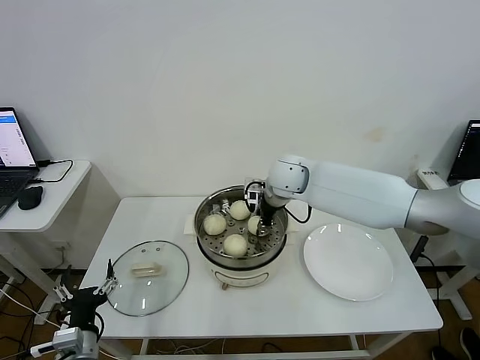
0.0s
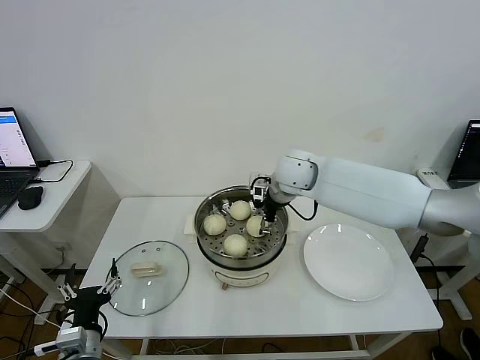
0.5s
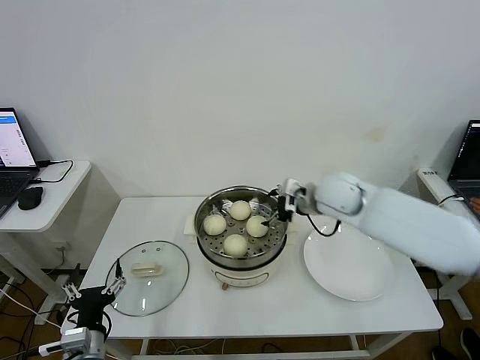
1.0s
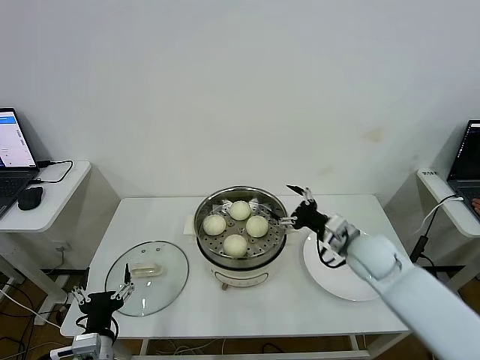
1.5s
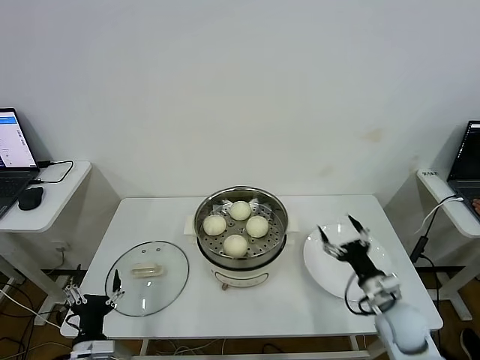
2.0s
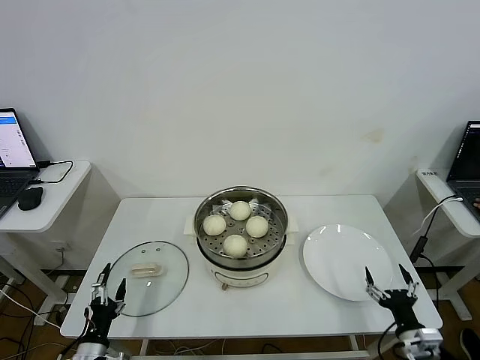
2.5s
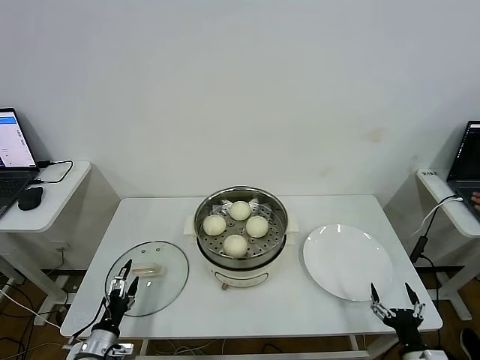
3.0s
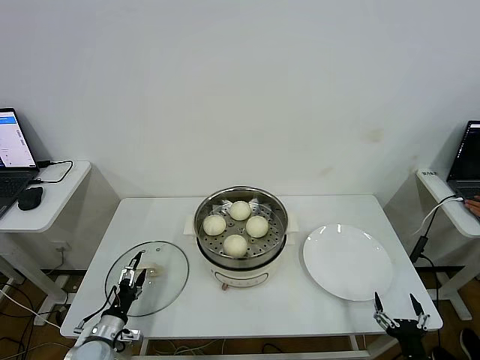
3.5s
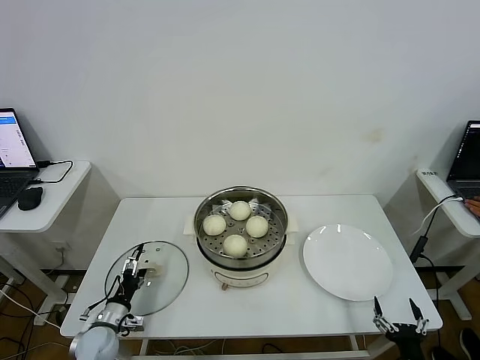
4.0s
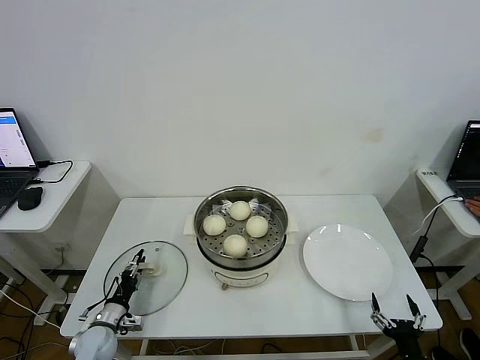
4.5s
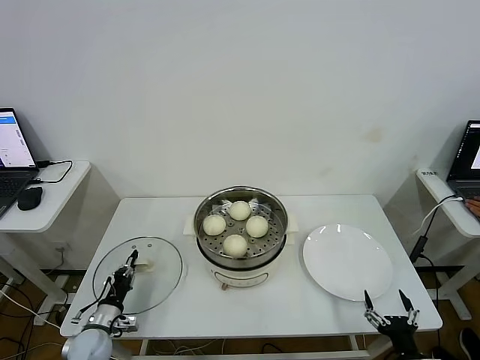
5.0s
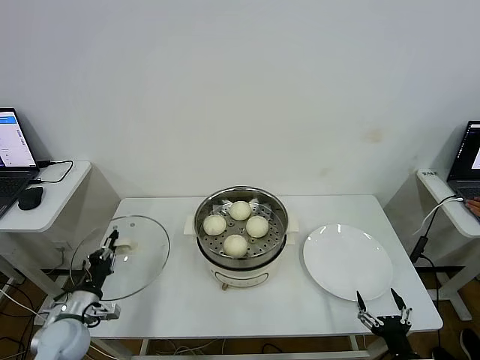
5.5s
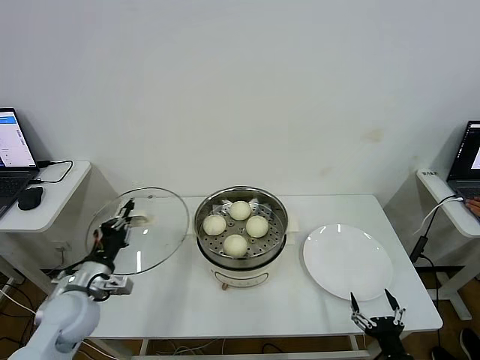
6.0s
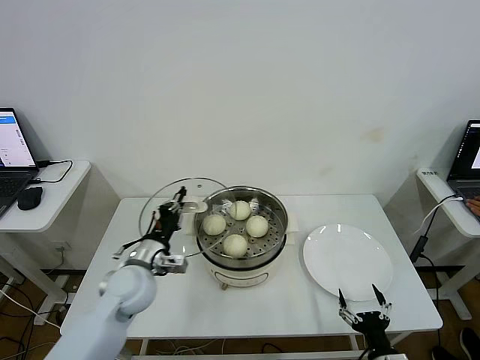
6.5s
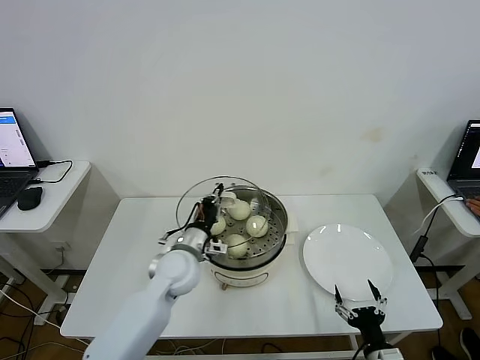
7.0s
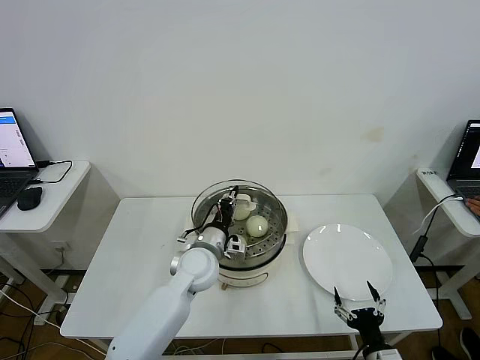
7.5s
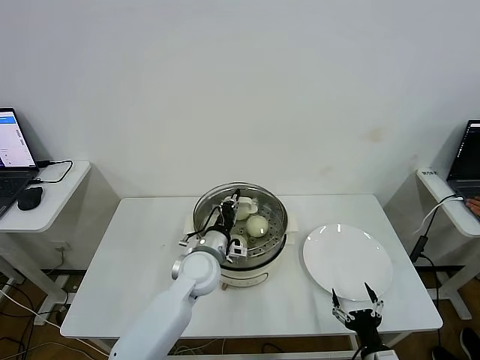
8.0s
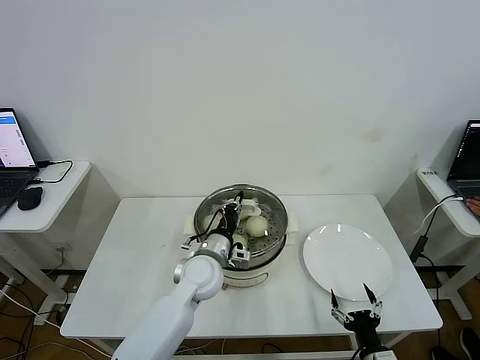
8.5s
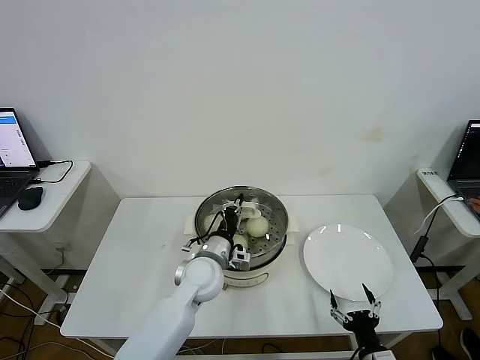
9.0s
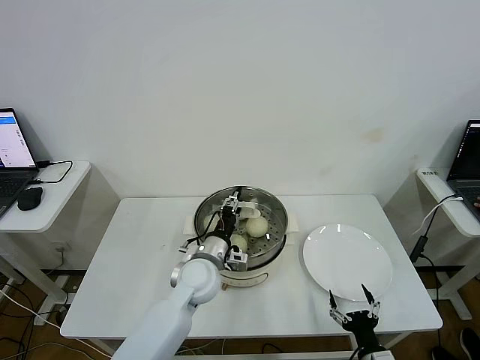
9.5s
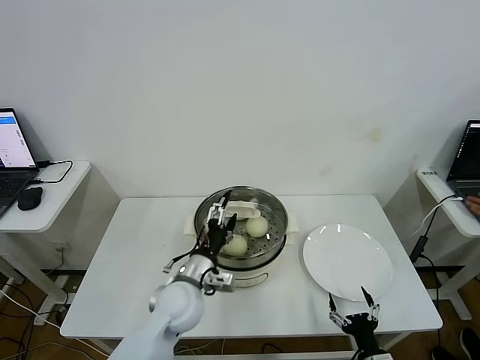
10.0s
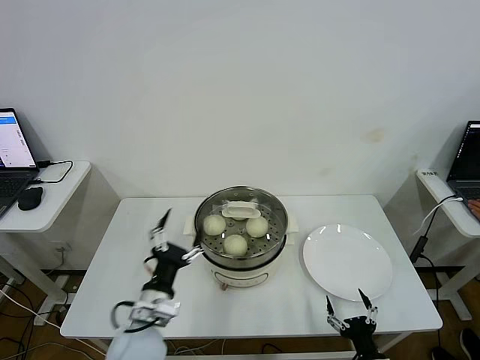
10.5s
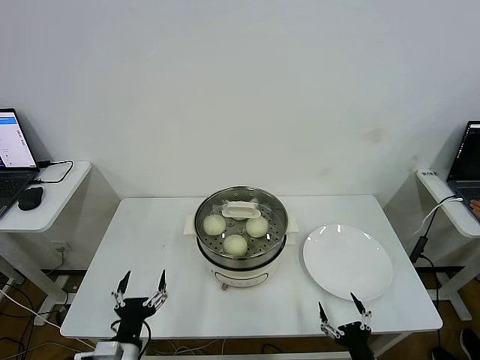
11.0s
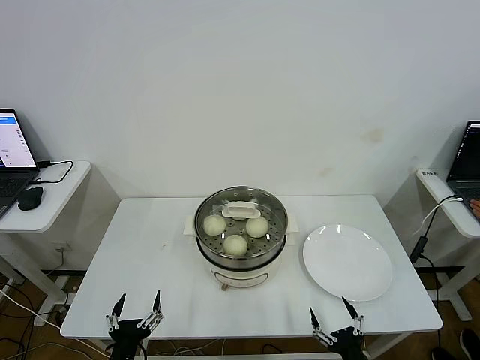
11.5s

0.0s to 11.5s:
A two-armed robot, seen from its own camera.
Step, 1.0s to 5.0s: Grasp the pot lid with left gripper.
Step, 5.5s to 9.5s: Place the pot lid on the steamer with left gripper.
0.0s to 2.0s: The right gripper moves backward, to the right and downward, approximately 40 cm, and opens its fingers.
2.0s to 4.0s: The right gripper heads backward and downward, covering roughly 20 cm, while the left gripper is displaced forward, downward and to the left by some 15 cm.
4.0s to 6.0s: The left gripper goes some 20 cm upward, and closes up.
6.0s to 7.5s: The left gripper moves to the right and forward, approximately 25 cm.
7.5s to 9.5s: The left gripper opens its fingers.
9.5s to 11.5s: The right gripper ends up about 5 cm from where it was; the left gripper travels backward and to the left by approximately 30 cm, and opens.

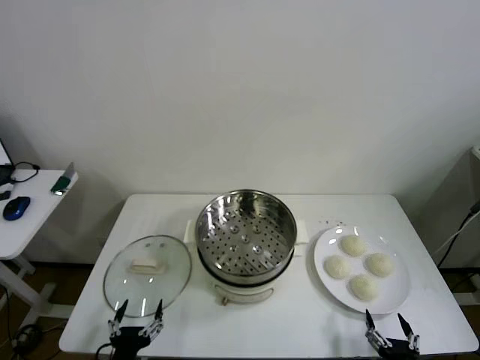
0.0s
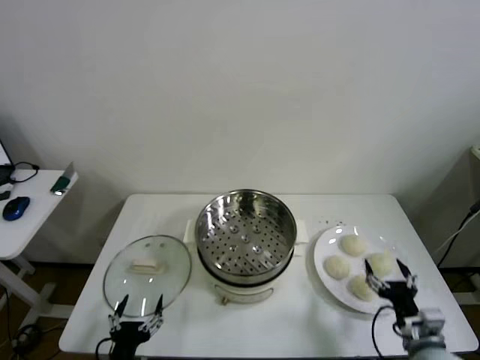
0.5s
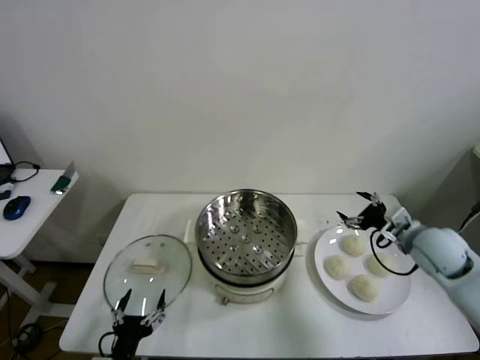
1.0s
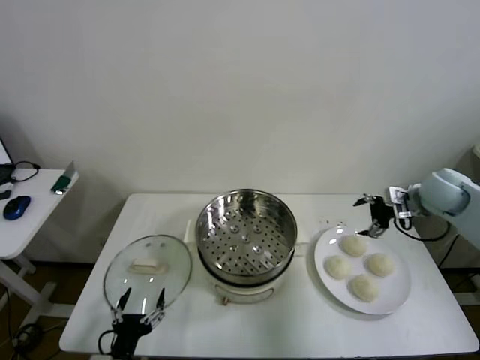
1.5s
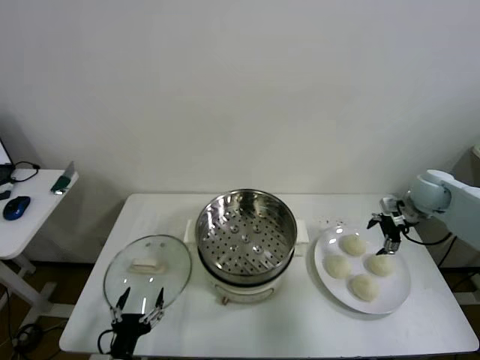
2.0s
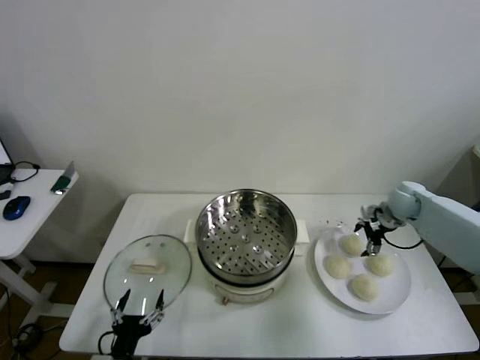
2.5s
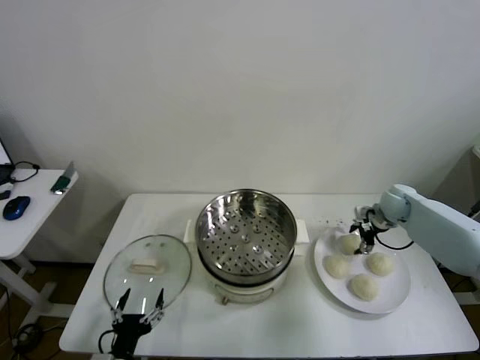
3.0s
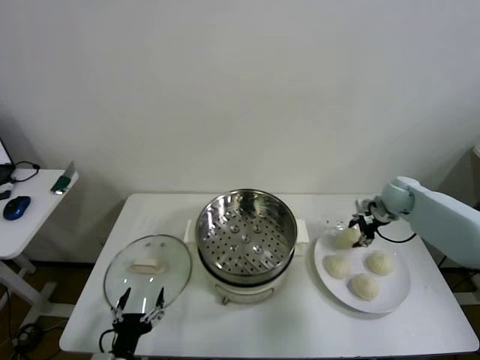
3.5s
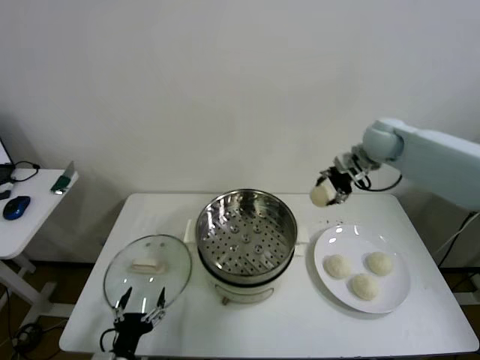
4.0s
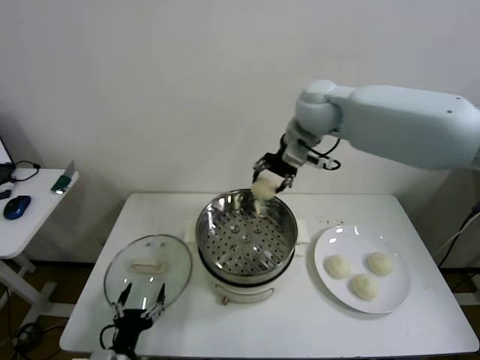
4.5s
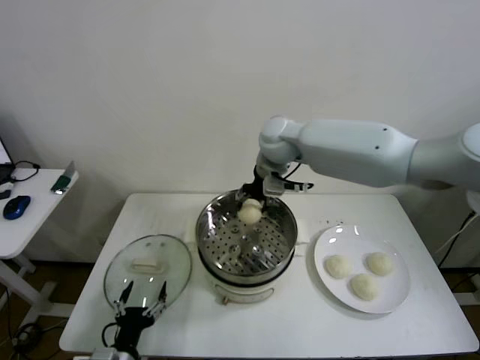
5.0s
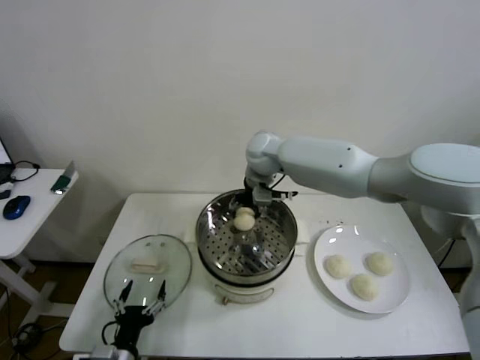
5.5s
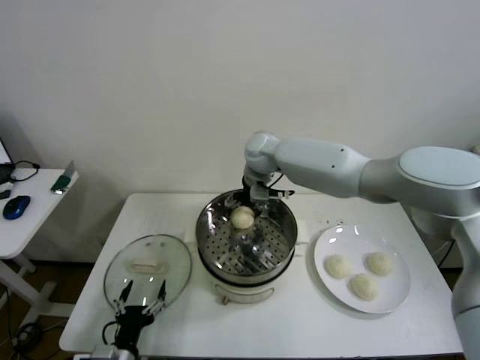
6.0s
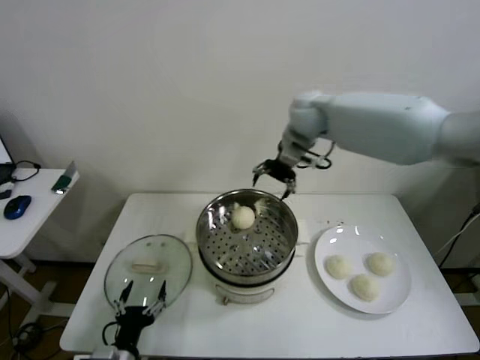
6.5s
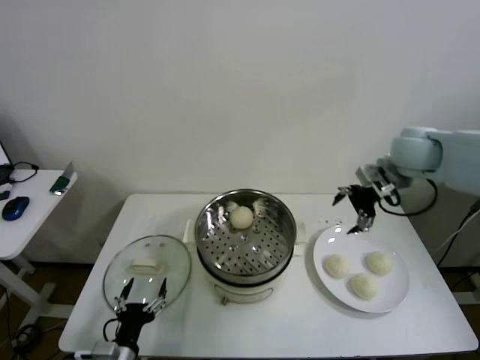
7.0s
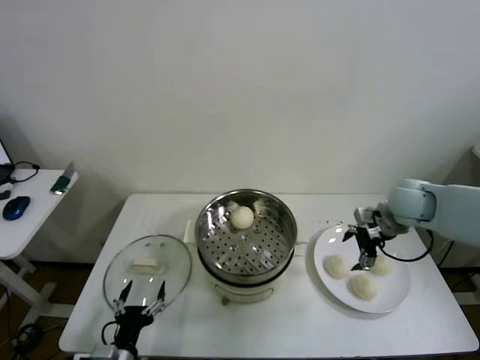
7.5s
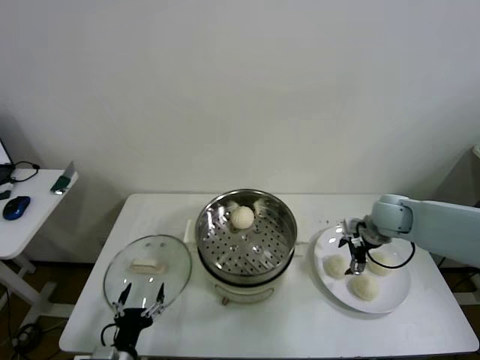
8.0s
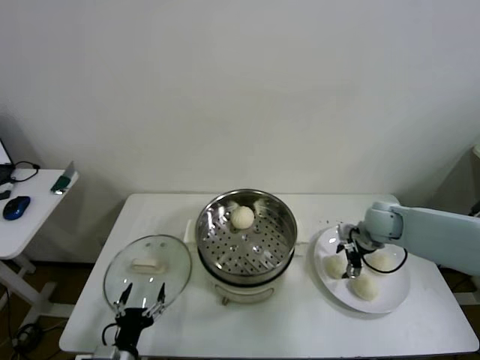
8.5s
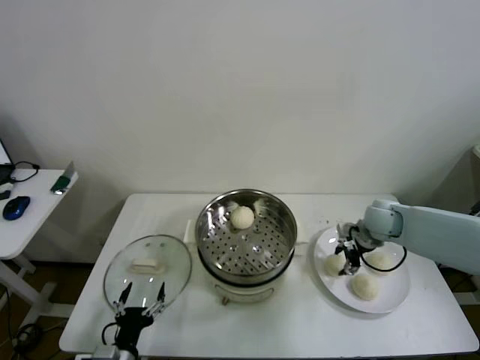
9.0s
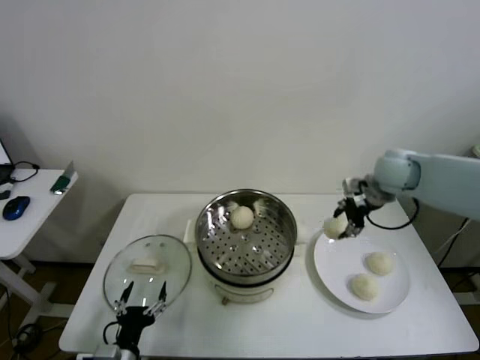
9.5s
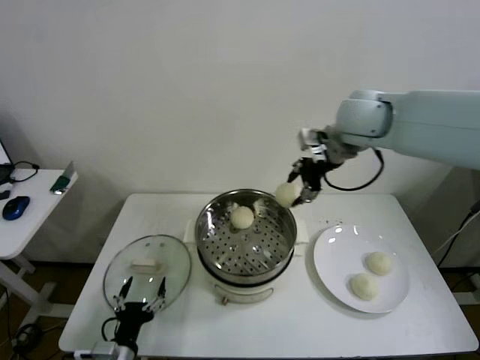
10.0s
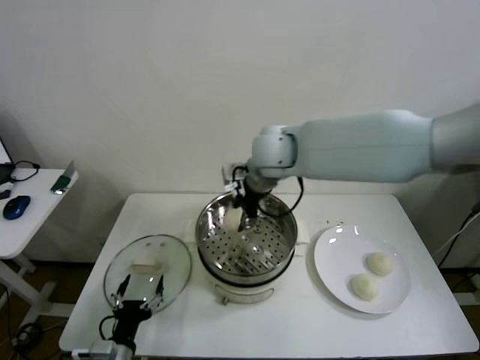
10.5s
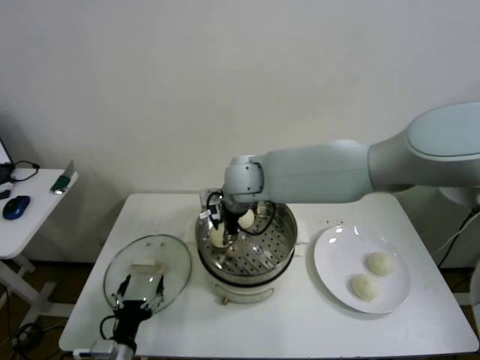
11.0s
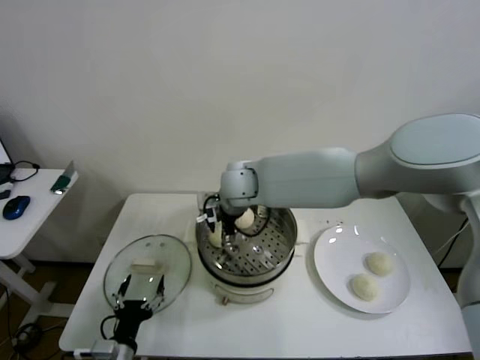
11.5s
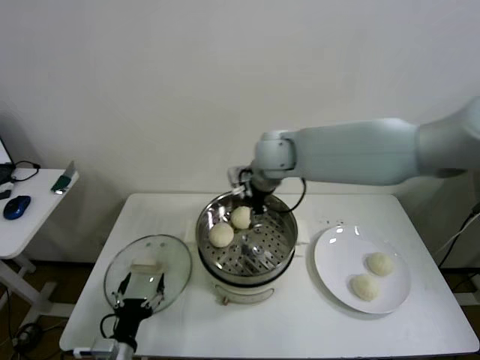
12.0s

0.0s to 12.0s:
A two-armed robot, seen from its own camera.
Step, 0.0s to 3.0s: Grasp the baozi in the plate with right gripper.
Step, 3.5s to 6.0s: Place the baozi on the steamer with right gripper.
Step, 6.5s to 8.5s: Grasp the baozi in the plate with right gripper.
Step, 9.0s to 11.5s: Place the baozi on the steamer with right gripper.
2.0s to 4.0s: The right gripper is displaced upward and to the left by roughly 25 cm, and closes.
4.0s to 6.0s: The right gripper moves to the left, approximately 20 cm, and opens.
6.0s to 8.0s: The right gripper shifts some 30 cm to the right and downward.
8.0s to 10.0s: The right gripper heads upward and to the left, covering roughly 30 cm, and closes its fingers.
10.0s to 12.0s: The right gripper is displaced to the left and downward by approximately 10 cm, and opens its fingers.

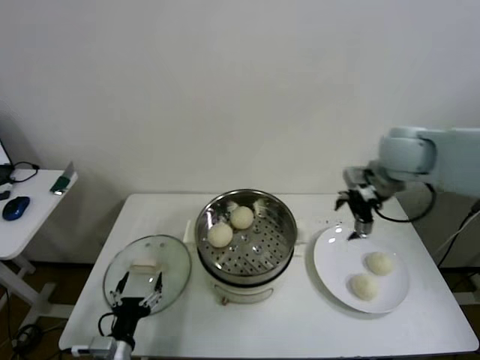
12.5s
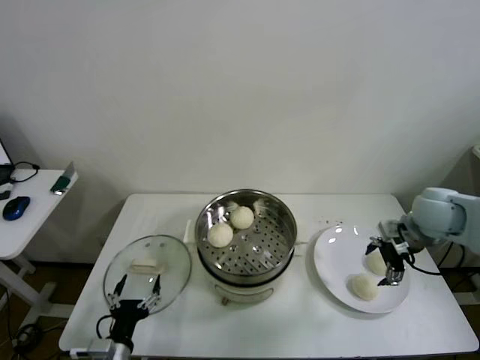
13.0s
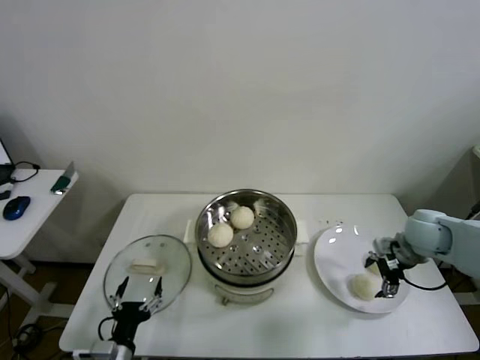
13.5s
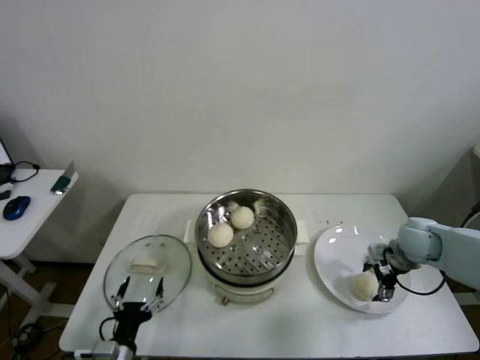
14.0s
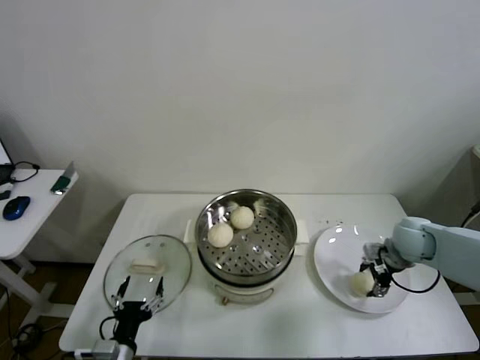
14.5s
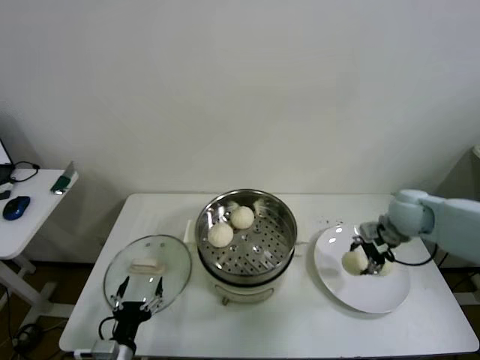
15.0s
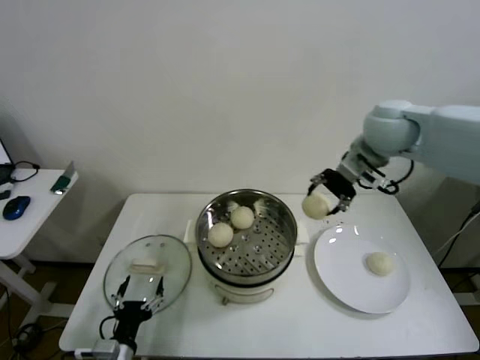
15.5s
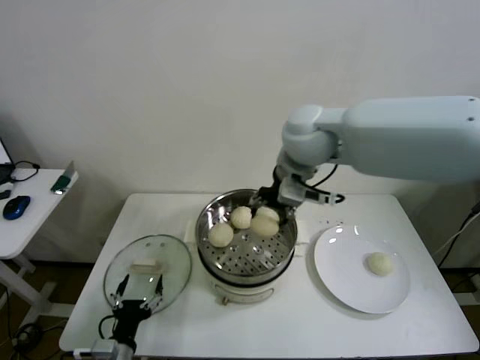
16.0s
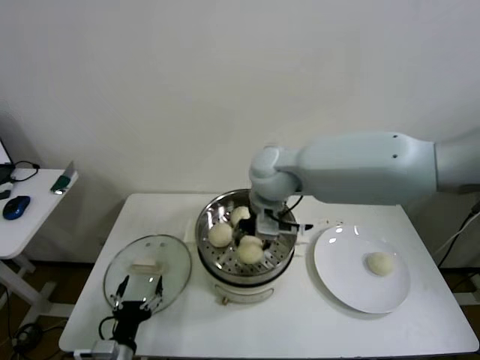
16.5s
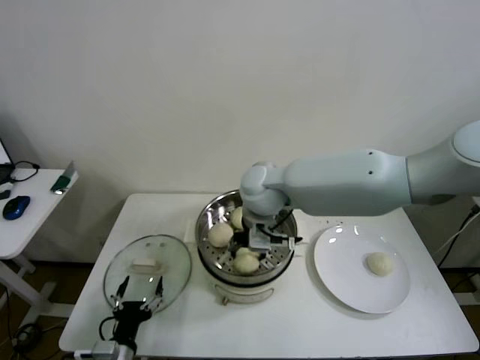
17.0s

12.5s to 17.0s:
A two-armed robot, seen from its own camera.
Step, 12.5s to 14.0s: Grasp the baozi in the plate with right gripper.
12.5s to 14.5s: The right gripper moves downward, some 20 cm, and closes its fingers.
14.5s to 17.0s: The right gripper heads to the left, covering some 35 cm.
